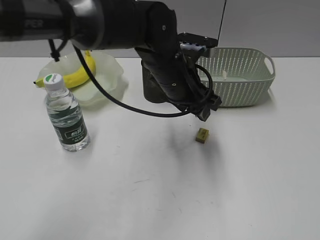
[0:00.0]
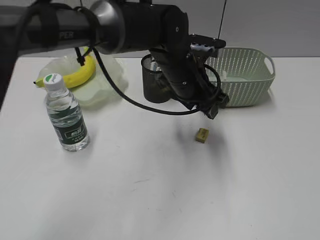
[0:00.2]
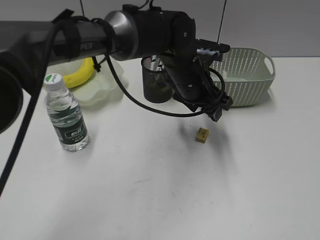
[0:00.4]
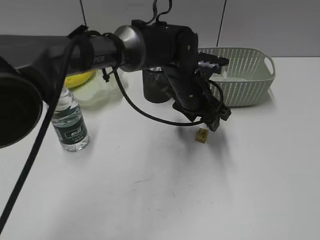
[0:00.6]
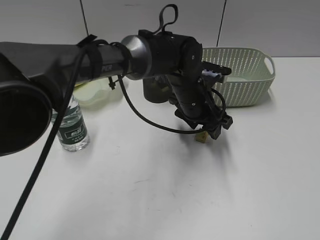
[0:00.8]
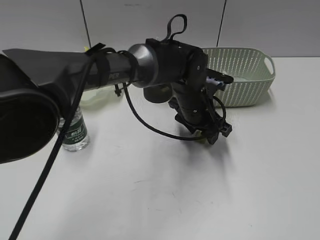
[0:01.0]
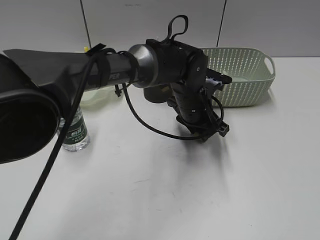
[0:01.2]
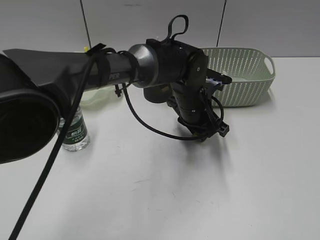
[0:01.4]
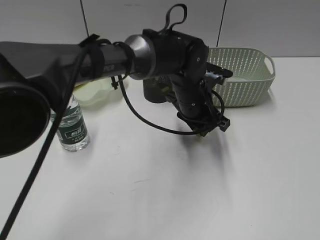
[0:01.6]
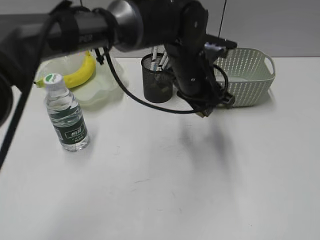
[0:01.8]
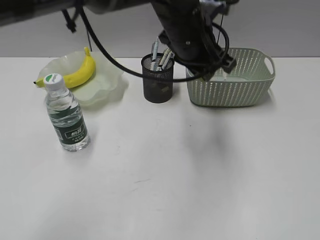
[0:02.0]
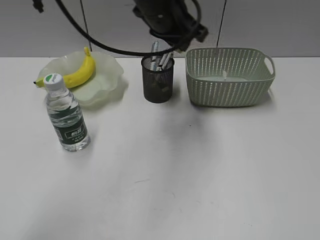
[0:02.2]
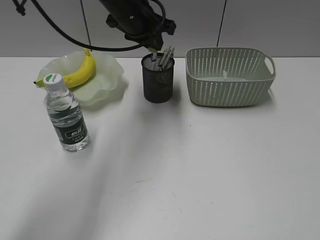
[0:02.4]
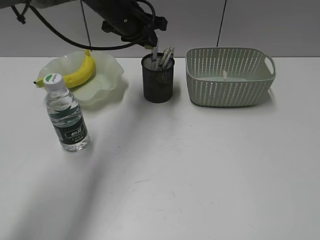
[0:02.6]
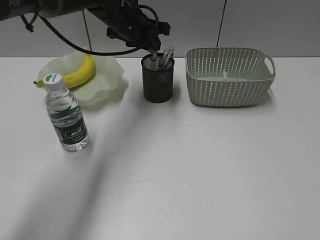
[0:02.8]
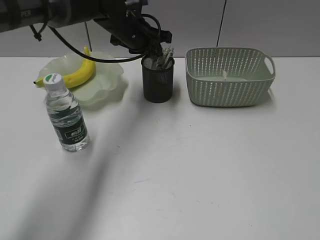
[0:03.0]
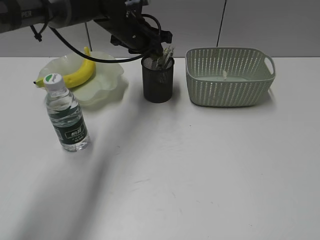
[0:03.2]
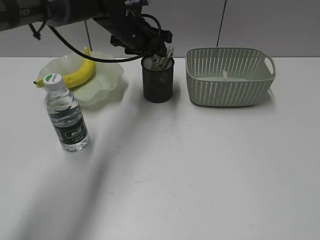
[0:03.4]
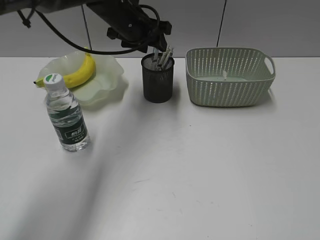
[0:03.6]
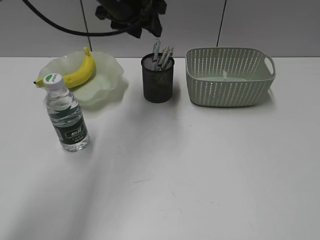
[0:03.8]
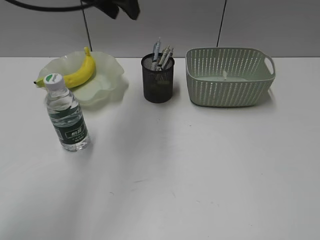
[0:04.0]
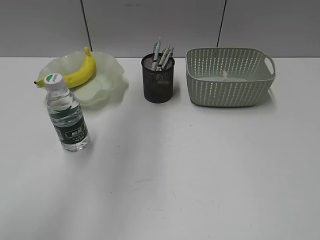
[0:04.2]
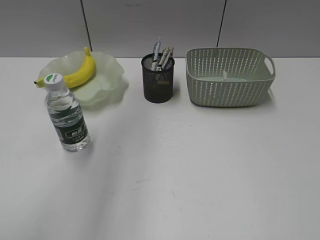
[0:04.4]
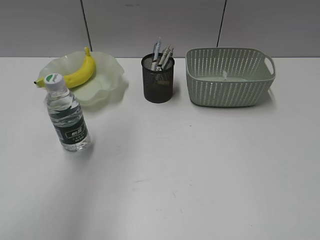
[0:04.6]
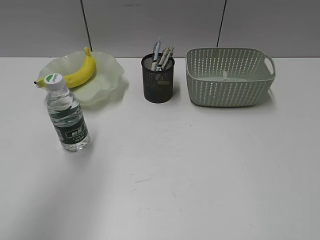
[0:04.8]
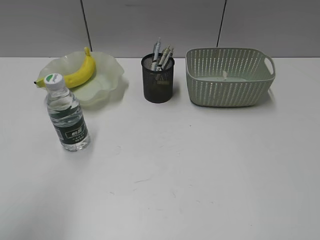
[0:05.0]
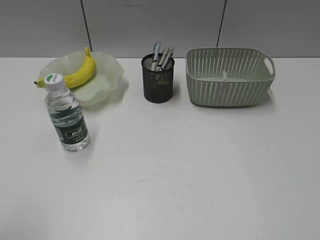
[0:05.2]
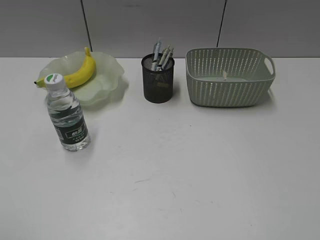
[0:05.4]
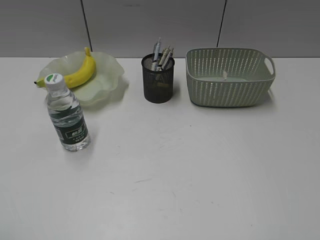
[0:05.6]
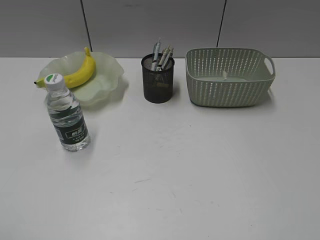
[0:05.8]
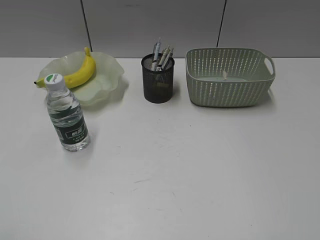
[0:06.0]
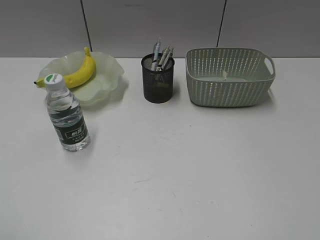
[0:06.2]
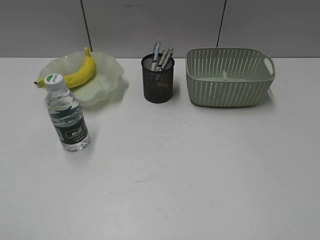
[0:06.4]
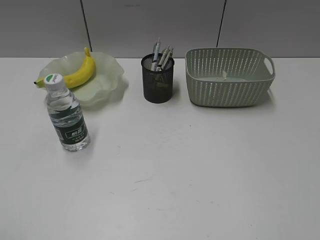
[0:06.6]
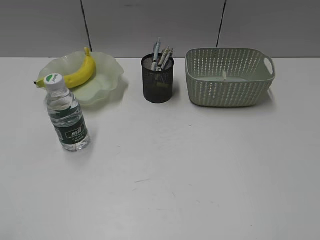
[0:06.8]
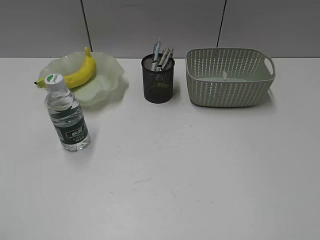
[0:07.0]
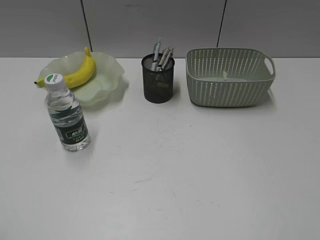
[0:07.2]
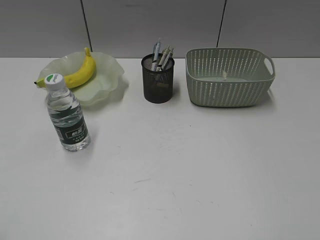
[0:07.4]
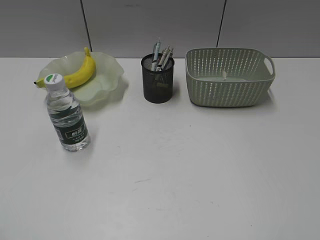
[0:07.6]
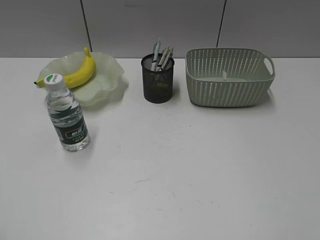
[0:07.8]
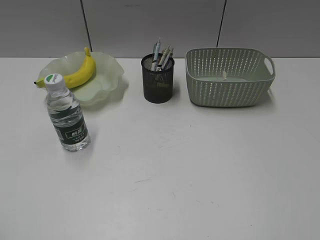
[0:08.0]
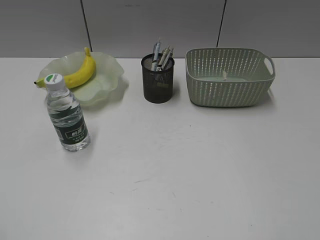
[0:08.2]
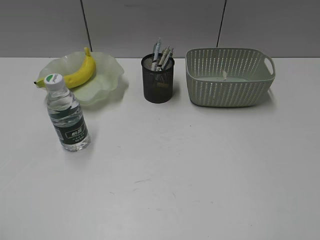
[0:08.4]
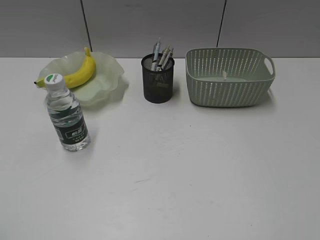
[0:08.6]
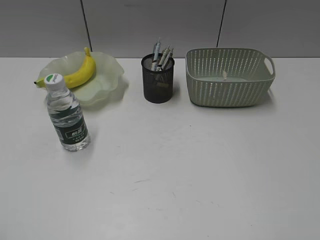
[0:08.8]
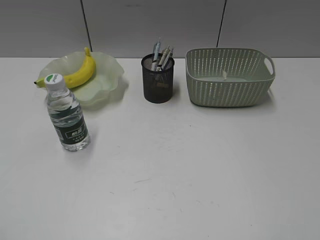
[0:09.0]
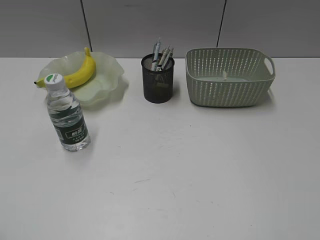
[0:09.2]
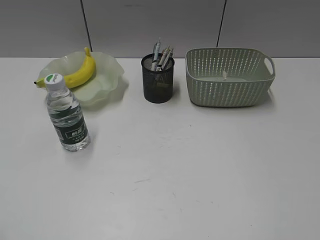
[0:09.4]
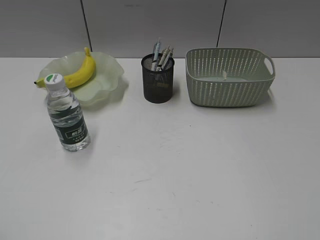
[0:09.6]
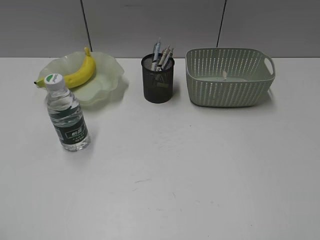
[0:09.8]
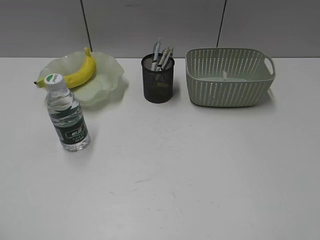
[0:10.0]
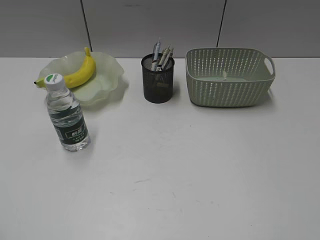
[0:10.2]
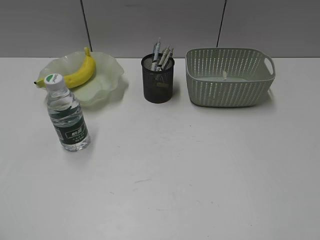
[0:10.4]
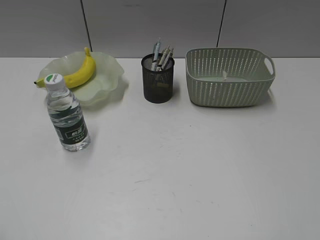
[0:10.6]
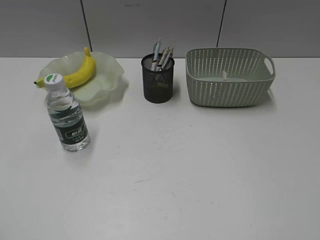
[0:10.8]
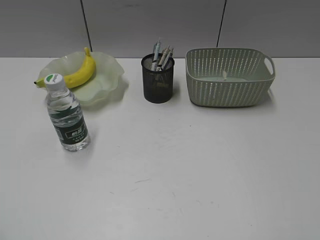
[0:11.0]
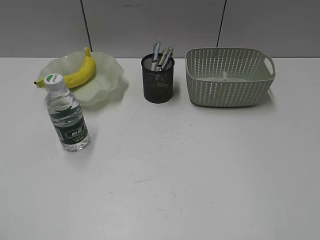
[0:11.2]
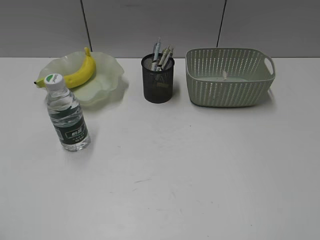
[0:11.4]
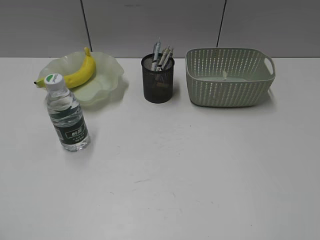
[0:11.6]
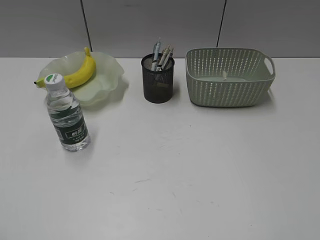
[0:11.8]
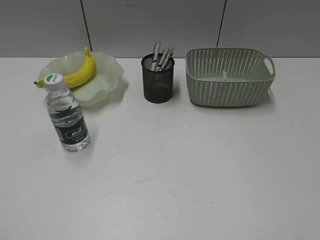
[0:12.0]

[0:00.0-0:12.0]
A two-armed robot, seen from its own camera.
Step, 0:01.4 to 0:03.4: Place the eraser in pen holder with left gripper.
0:00.0 to 0:01.6: The left gripper is displaced downward by about 5 cm, and closes its fingers.
0:01.6 to 0:03.0: The left gripper heads to the left, forward and upward, covering about 20 cm.
0:03.0 to 0:04.4: The left gripper is displaced upward, backward and to the left by approximately 30 cm, and opens.
0:04.4 to 0:06.0: The left gripper is displaced backward, downward and to the left by roughly 40 cm.
0:07.6 to 0:12.0: Both grippers stay about where they are.

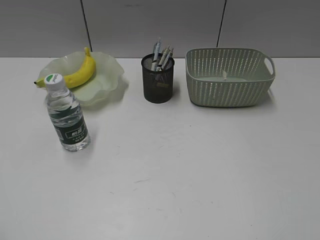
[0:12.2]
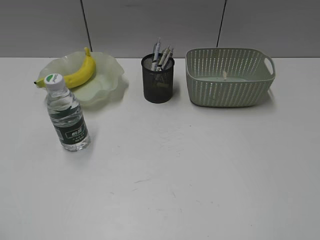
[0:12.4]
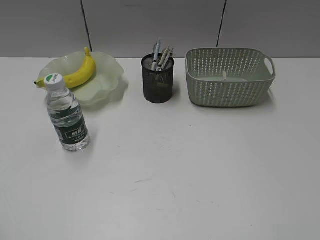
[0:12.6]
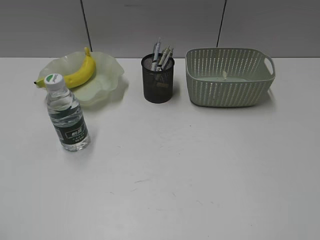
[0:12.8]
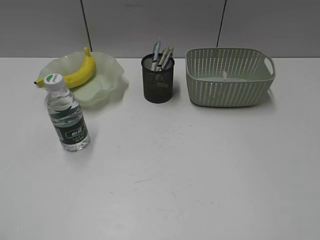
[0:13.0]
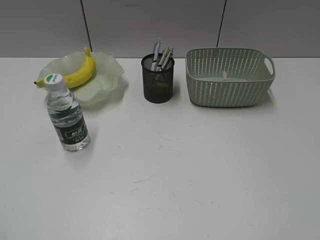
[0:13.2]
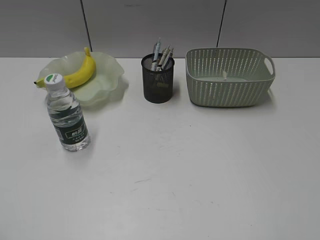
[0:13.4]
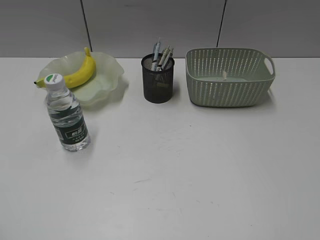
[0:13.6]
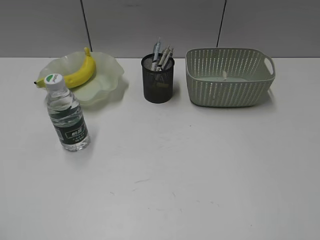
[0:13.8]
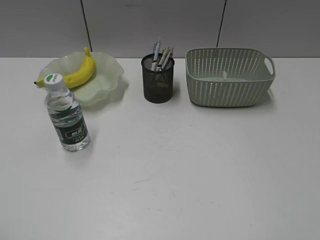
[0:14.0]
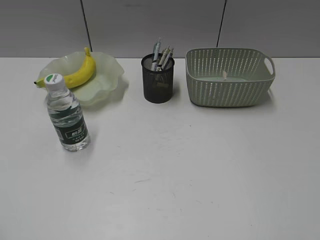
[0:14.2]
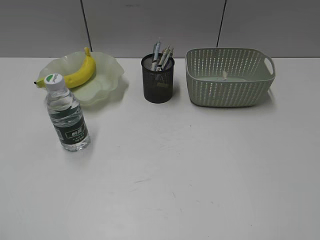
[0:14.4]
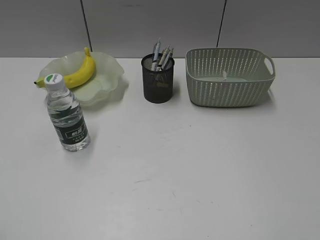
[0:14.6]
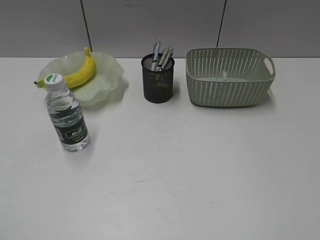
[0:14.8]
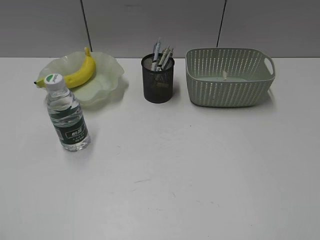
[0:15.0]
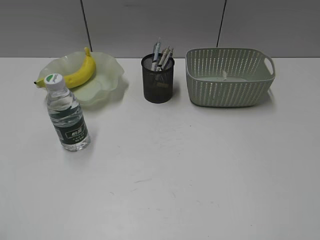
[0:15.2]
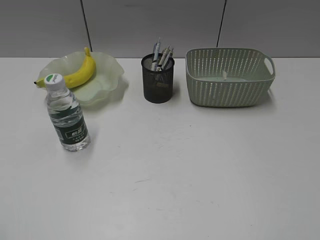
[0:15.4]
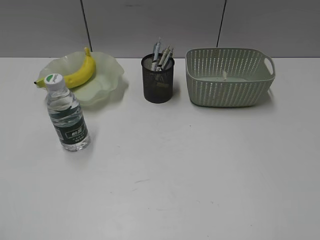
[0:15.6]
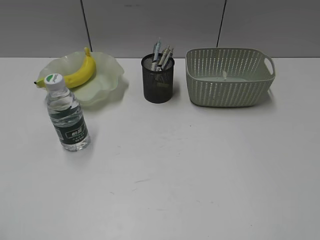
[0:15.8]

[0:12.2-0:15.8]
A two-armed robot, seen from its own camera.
0:12.2 to 0:15.8: Neither gripper changes place.
